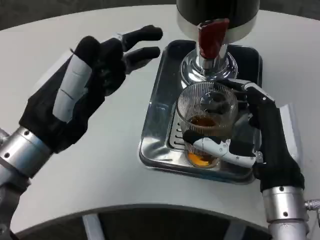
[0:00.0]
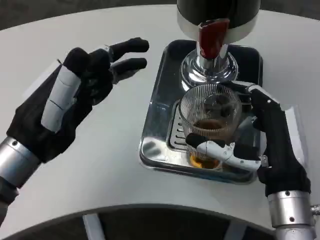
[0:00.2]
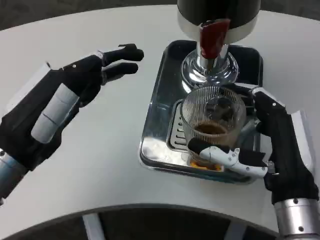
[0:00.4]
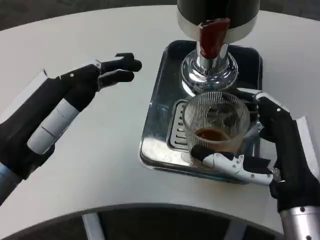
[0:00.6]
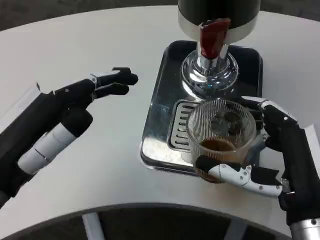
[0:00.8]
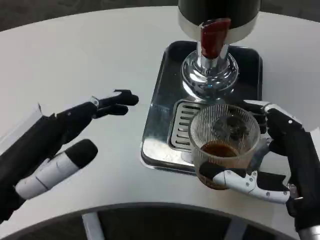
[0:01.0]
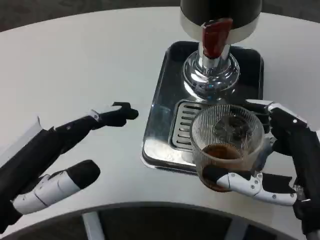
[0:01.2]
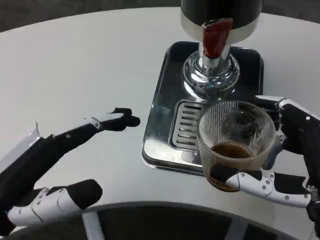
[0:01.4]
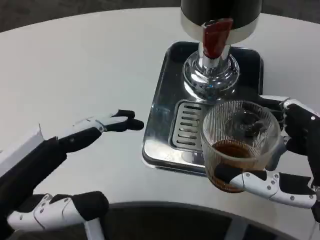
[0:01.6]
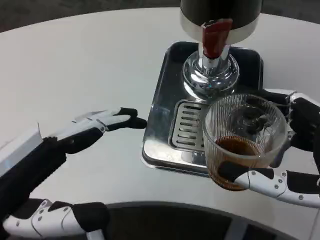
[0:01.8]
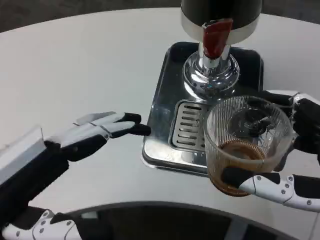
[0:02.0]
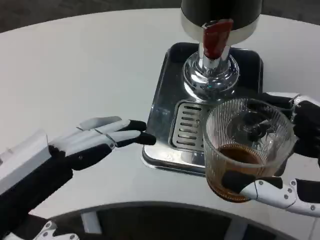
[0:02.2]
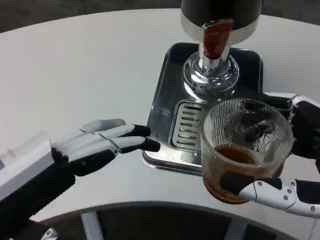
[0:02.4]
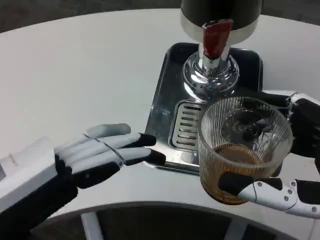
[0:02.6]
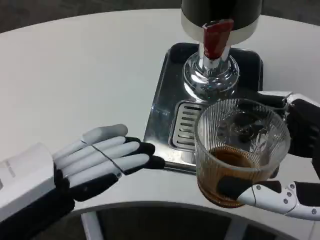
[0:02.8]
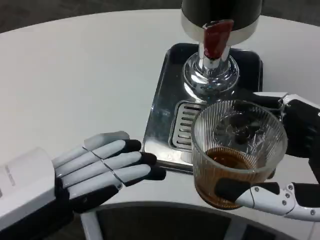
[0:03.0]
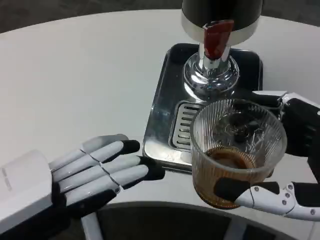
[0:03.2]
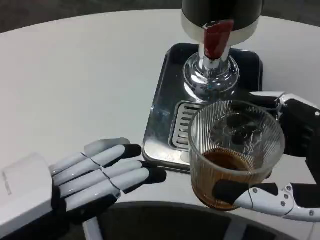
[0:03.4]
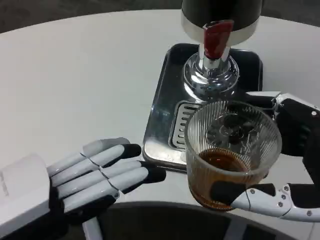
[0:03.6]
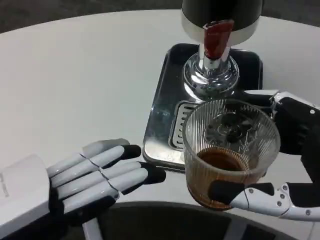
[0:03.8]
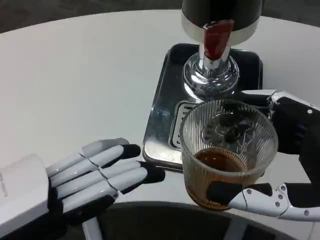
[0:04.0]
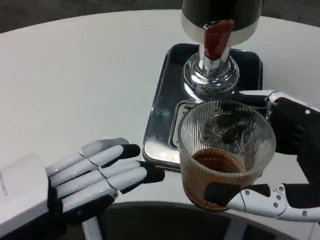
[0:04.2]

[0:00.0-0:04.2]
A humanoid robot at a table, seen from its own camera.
Task of the whole recording: Grasp the cup under the faucet to collect the drink, then remove the cup.
0.0 to 1.4 s: Both hands move backward, about 10 cm.
1.4 to 2.8 s: The right hand moves about 5 cm.

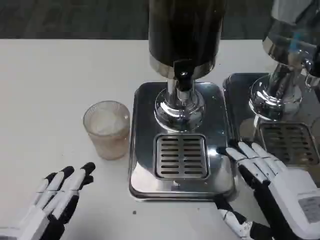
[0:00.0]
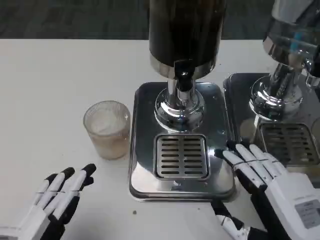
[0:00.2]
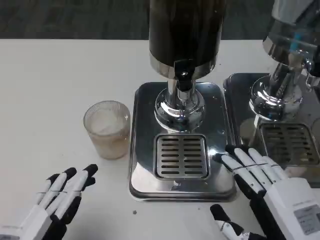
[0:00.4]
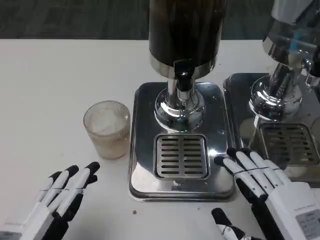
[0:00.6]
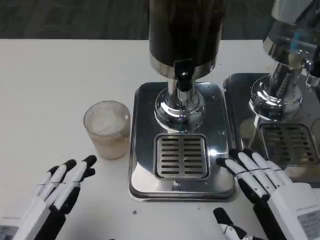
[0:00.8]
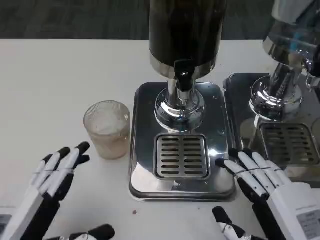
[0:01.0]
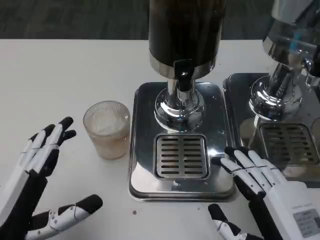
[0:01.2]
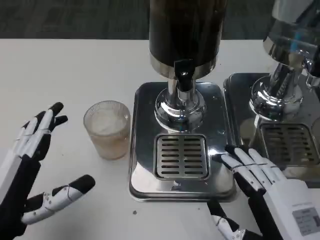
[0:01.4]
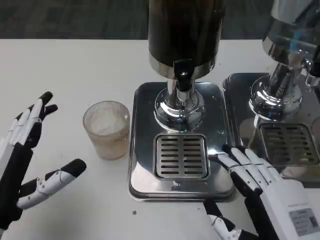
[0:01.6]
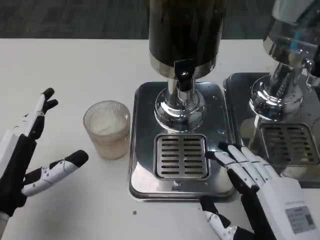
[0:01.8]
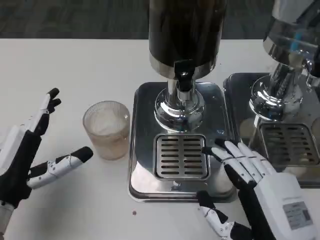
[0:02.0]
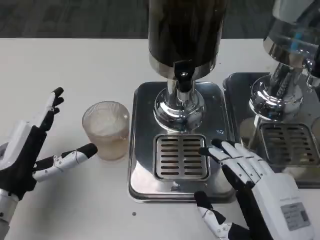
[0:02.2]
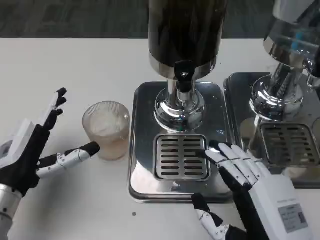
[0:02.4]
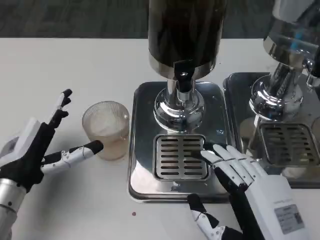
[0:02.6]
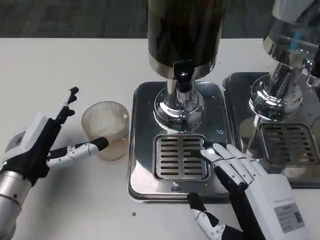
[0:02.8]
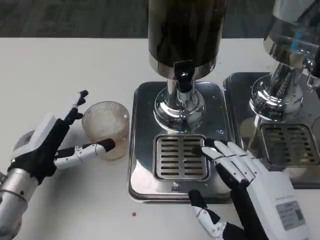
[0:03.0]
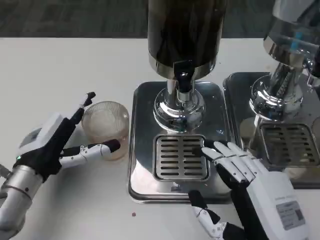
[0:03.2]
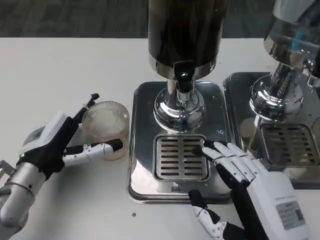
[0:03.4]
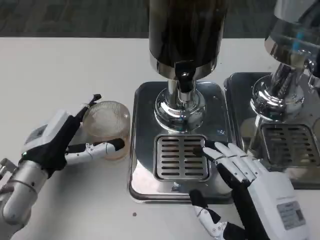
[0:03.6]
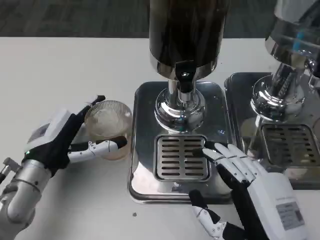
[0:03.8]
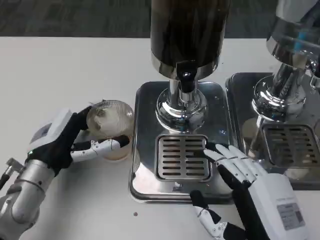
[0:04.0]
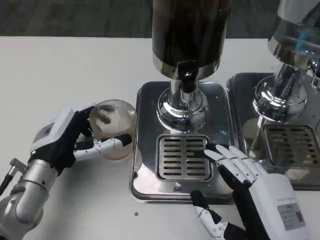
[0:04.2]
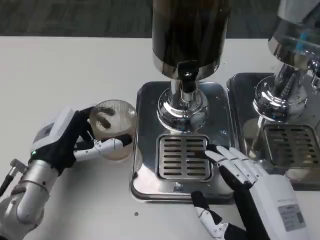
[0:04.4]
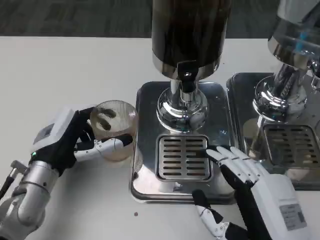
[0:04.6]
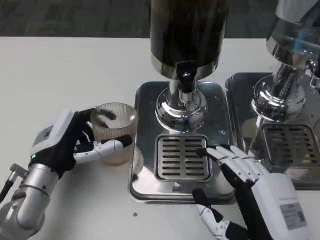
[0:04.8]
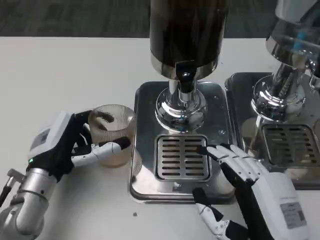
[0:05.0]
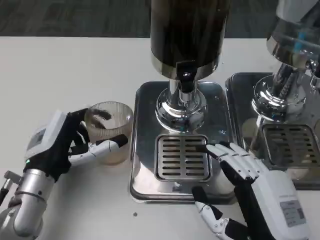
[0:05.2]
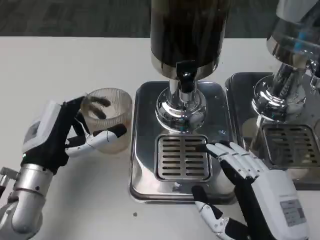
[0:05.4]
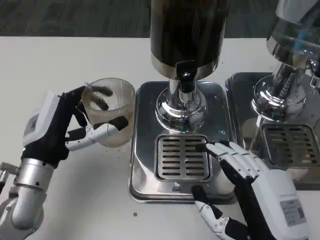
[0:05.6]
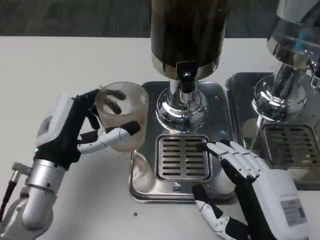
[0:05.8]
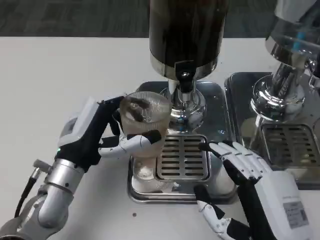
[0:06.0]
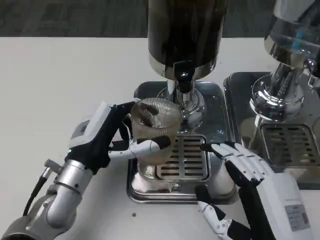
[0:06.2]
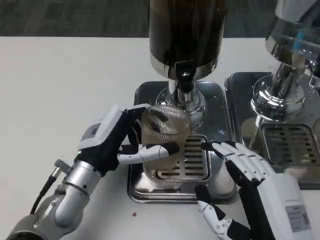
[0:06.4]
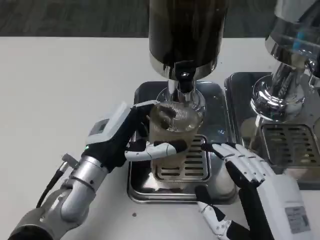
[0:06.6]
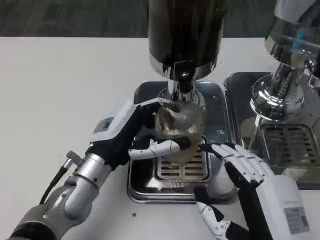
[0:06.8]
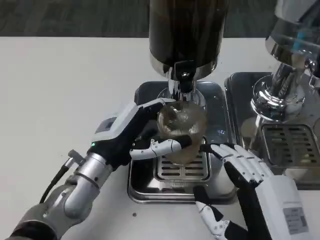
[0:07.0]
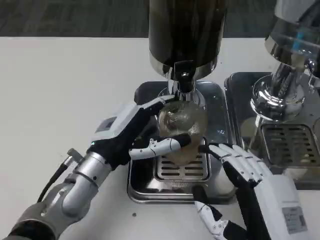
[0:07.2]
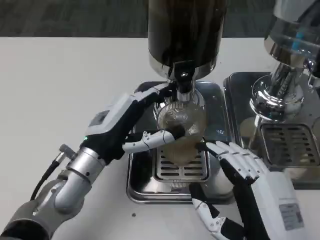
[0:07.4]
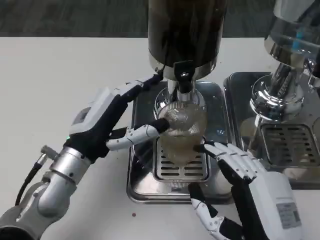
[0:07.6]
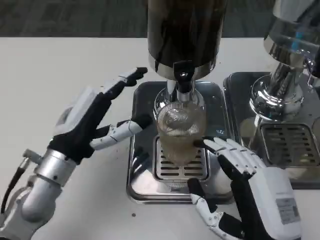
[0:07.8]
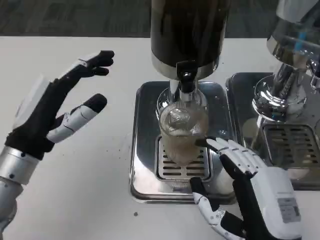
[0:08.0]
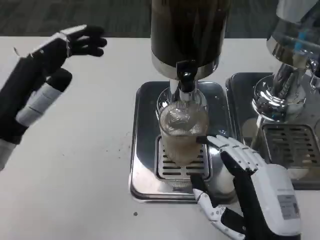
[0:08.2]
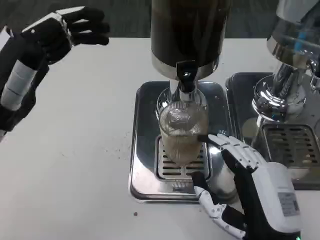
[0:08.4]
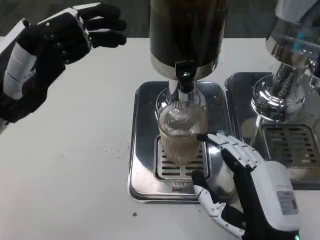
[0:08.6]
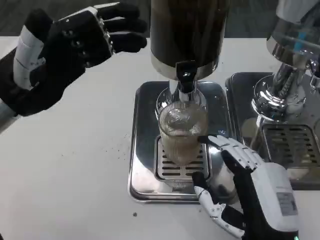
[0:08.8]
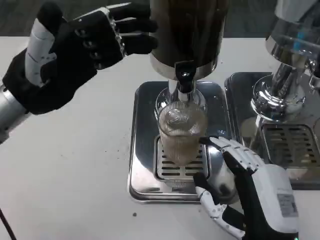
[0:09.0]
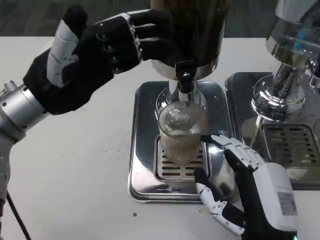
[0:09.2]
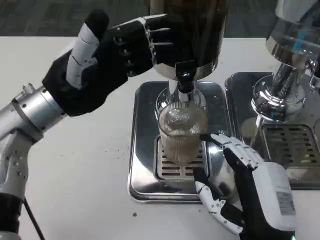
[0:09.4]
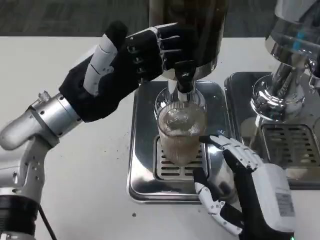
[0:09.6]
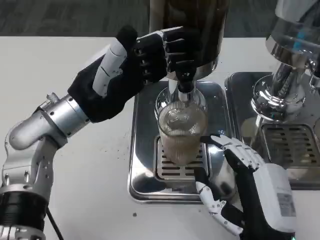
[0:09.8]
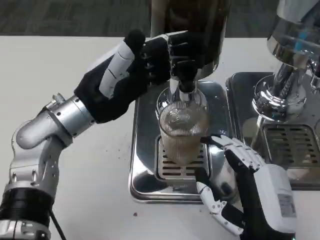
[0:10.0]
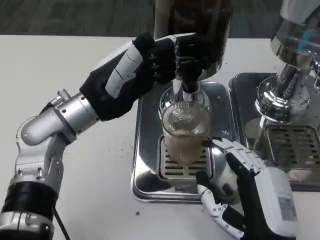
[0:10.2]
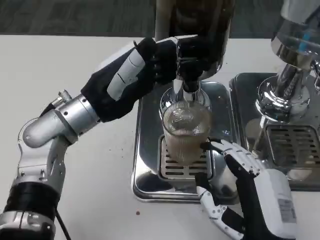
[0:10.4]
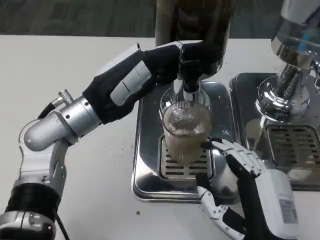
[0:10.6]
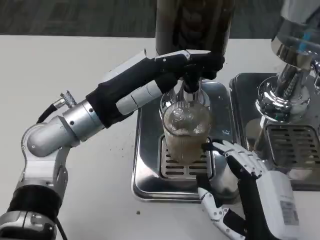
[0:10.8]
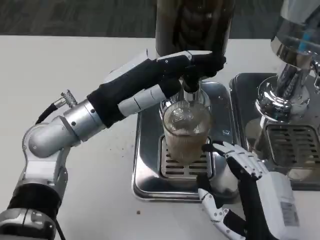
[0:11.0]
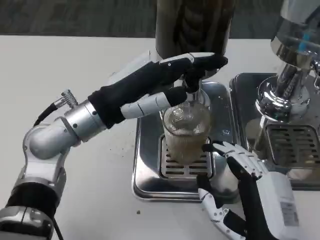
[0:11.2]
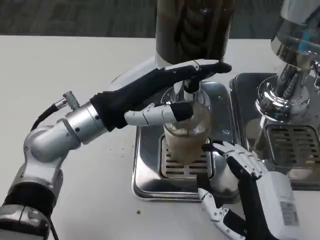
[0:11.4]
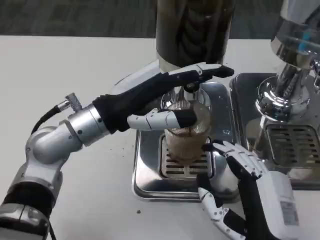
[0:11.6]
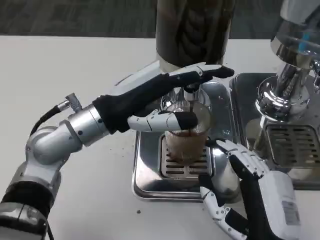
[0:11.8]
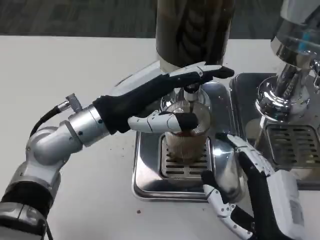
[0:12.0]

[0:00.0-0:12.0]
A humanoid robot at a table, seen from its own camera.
Task of the whole recording: Grasp the cup under the faucet to collect the drink, then remove the cup.
0.0 to 1.6 s: The left hand goes approximately 10 cm forward.
1.6 to 3.0 s: The left hand is displaced forward by approximately 10 cm.
7.6 to 9.0 s: The left hand shifts about 15 cm upward and to the left.
9.0 to 10.4 s: The left hand shifts about 5 cm to the right.

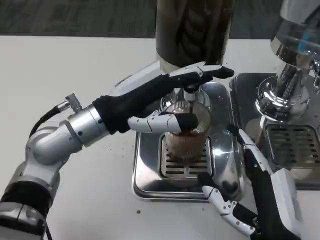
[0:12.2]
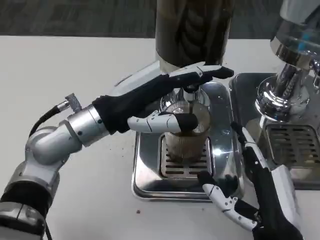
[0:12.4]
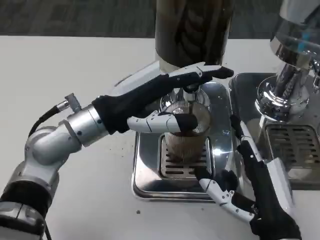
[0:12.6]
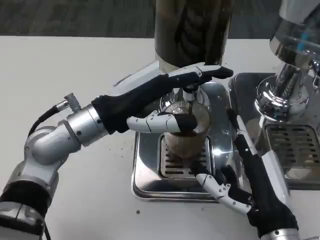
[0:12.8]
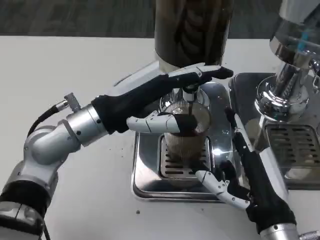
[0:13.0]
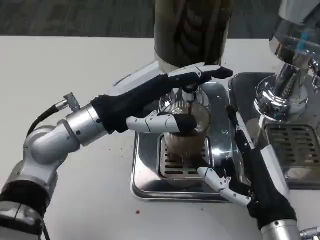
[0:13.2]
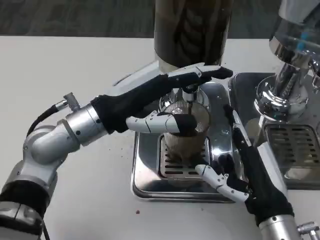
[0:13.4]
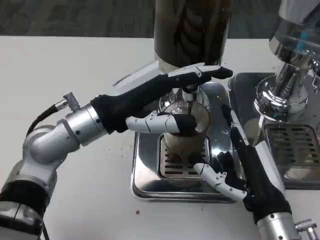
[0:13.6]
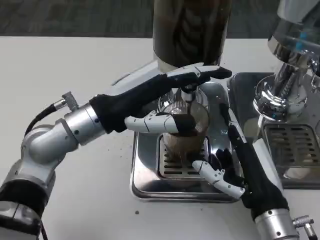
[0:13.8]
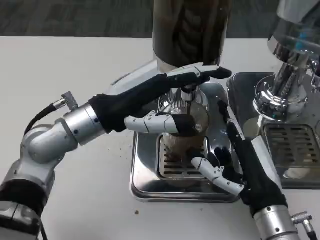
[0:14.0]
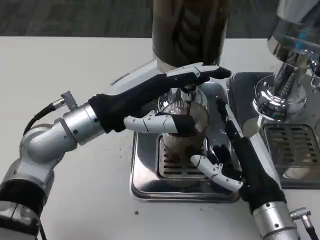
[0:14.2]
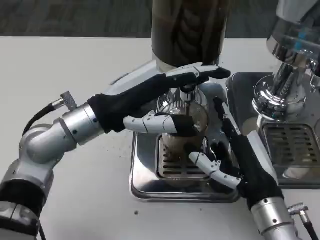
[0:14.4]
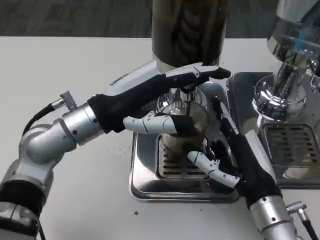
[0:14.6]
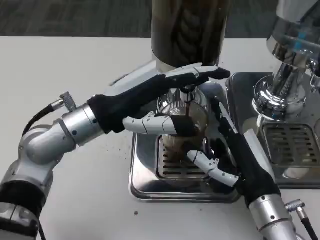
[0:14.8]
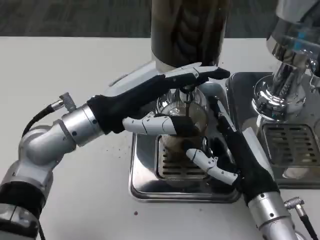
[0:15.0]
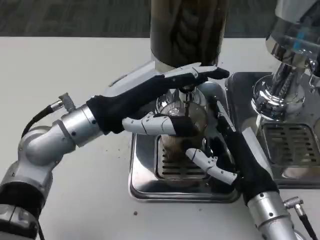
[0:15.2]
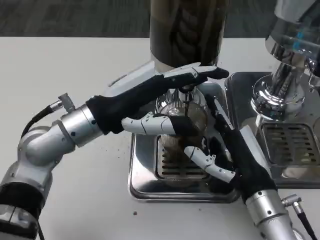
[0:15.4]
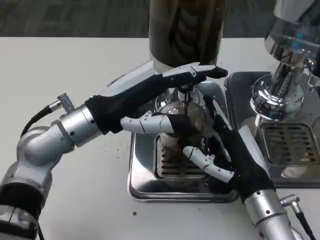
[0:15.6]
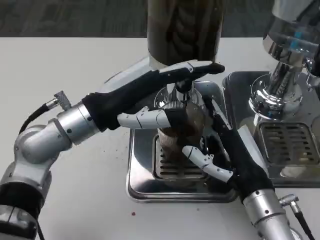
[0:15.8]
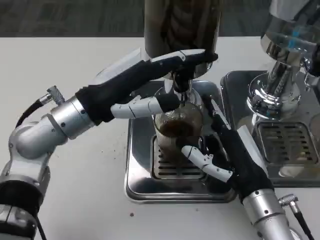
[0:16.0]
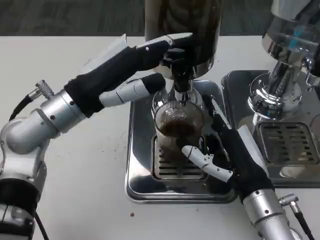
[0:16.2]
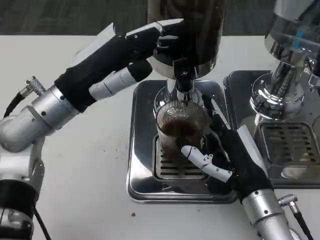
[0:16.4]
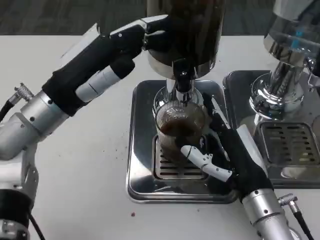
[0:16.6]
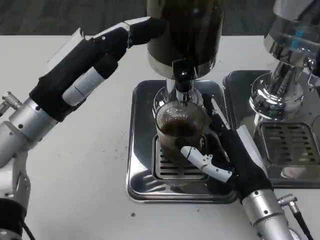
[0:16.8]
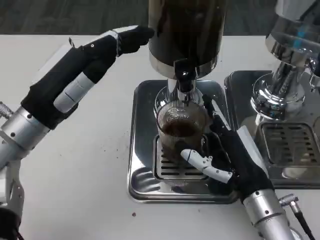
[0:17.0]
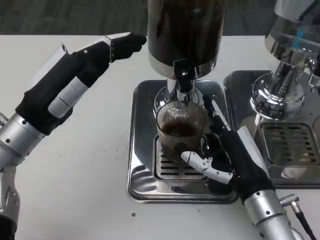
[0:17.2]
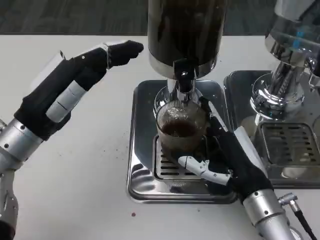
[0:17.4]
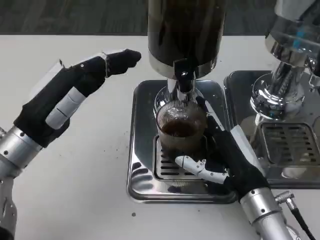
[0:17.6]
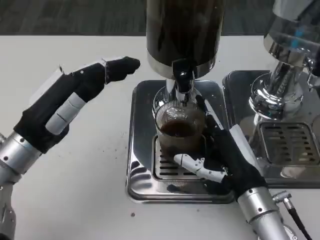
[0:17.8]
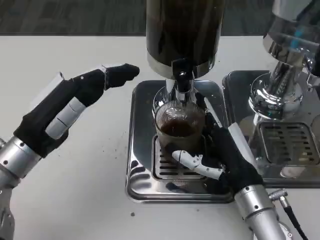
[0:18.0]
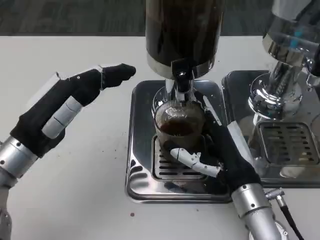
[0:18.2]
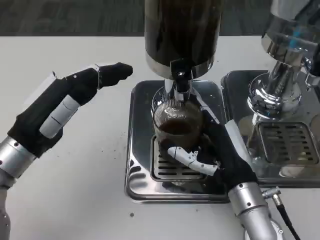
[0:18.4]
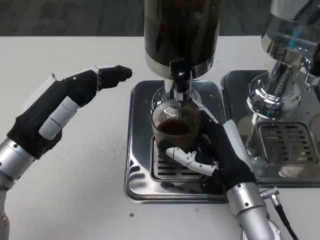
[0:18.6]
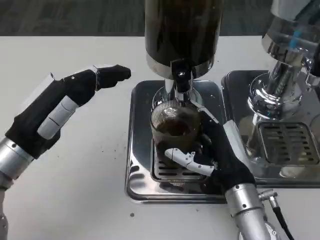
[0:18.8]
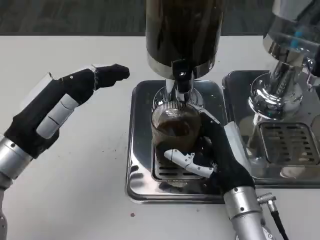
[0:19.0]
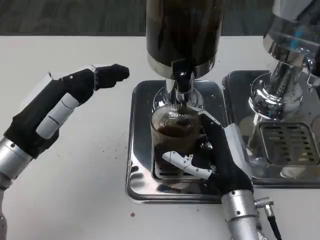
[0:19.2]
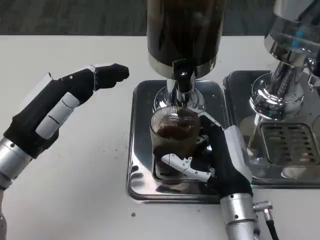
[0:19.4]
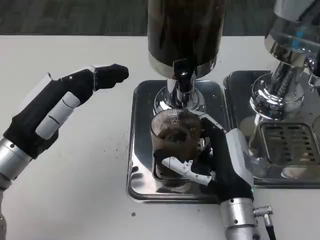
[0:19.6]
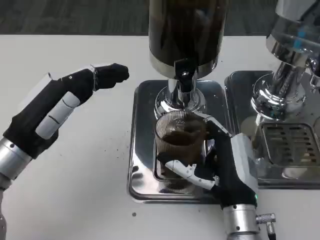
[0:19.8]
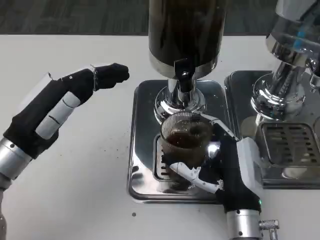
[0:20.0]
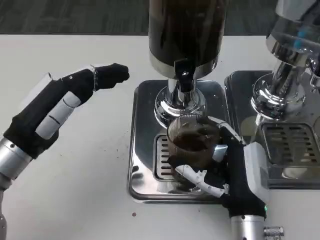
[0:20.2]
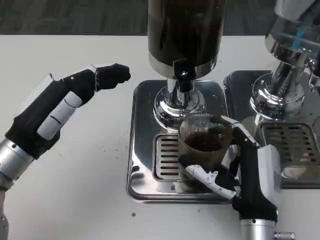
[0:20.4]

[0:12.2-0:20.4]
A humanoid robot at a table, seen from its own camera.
Task of the whole recording: Grasp the cup under the faucet to collect the drink, then remove the cup.
12.2 to 13.8 s: The right hand is displaced forward by about 5 cm.
15.4 to 17.2 s: The left hand travels to the left by about 5 cm.
18.8 to 20.4 s: The right hand changes place by approximately 5 cm.
